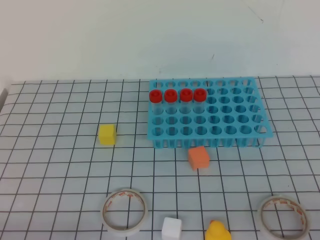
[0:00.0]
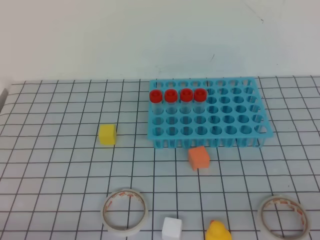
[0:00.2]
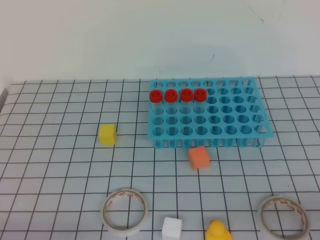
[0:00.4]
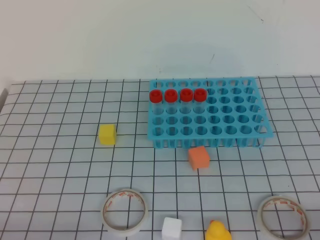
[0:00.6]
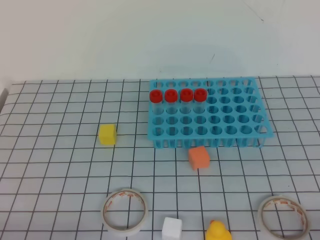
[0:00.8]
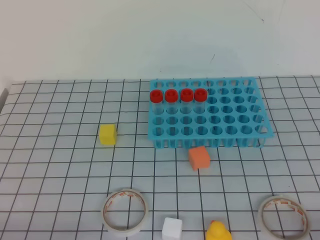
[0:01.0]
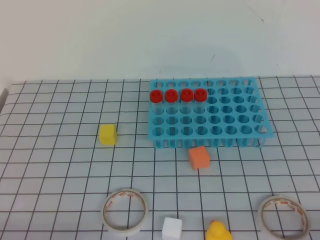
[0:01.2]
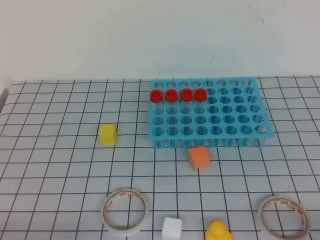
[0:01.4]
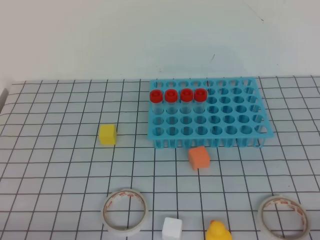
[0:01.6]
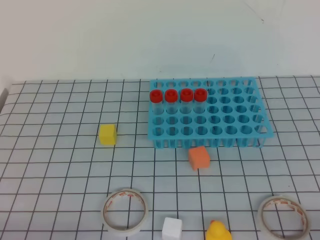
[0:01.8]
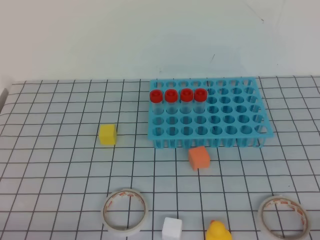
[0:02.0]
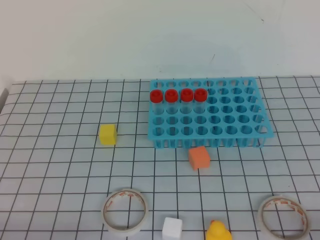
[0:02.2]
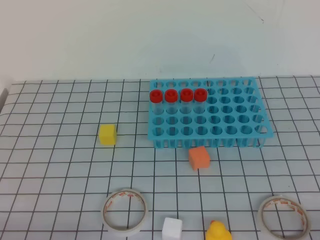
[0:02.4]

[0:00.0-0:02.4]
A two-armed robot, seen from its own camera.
0:01.2 to 0:02.4: Both grippers stay put.
